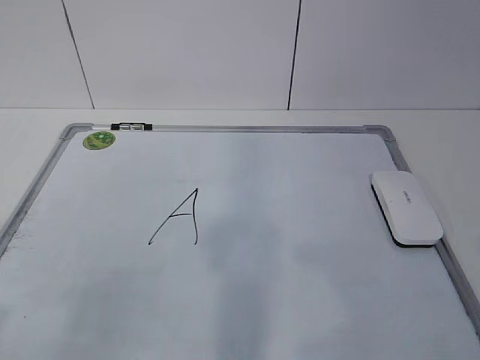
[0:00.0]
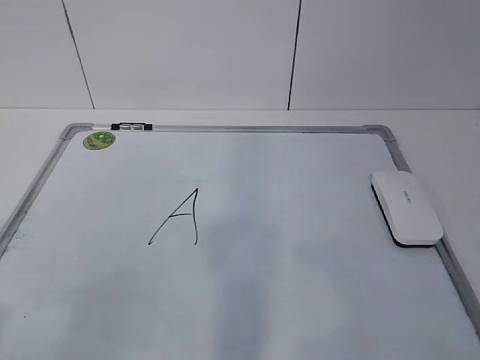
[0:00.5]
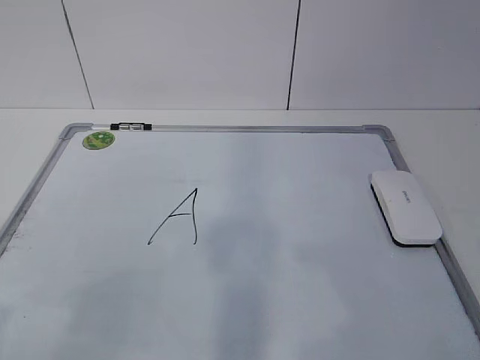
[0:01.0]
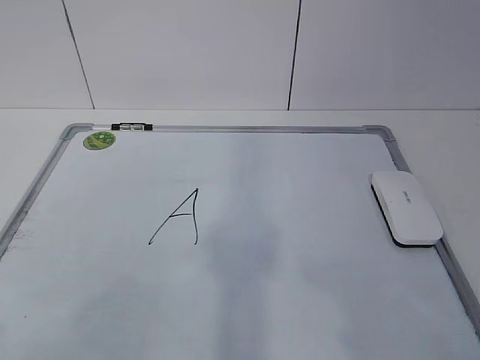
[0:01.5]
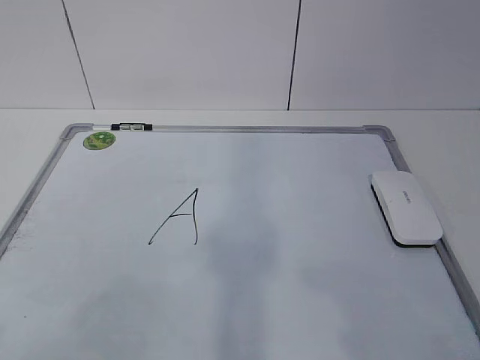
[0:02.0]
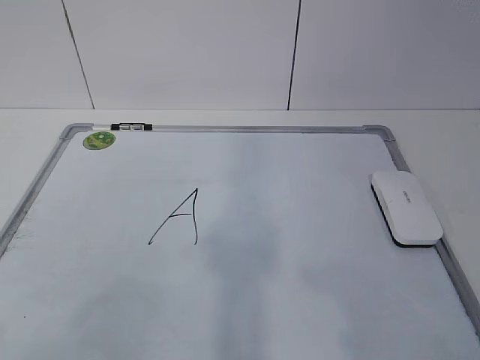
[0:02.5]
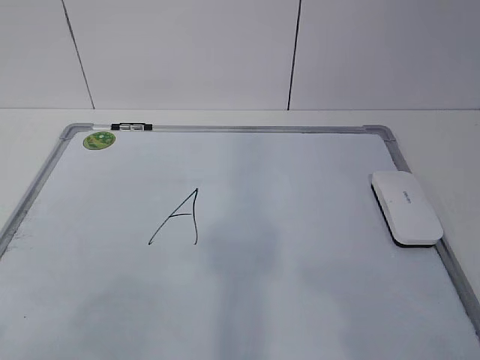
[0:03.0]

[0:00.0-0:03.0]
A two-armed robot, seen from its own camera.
Task of the whole recording: pick up the eraser on the blackboard and erase the letter "a".
0:01.5 to 0:03.0: The two grippers keep their place.

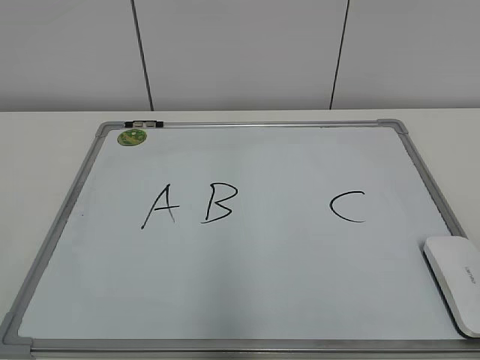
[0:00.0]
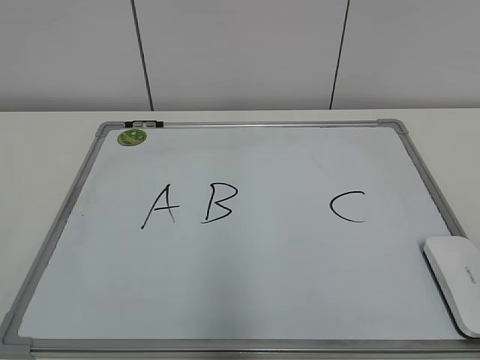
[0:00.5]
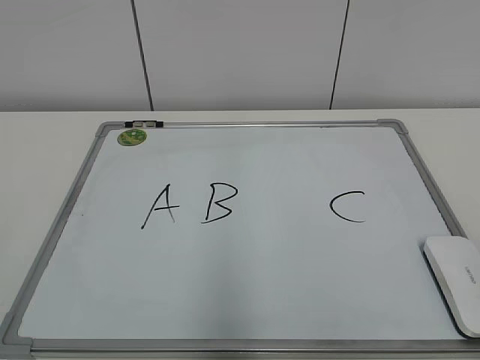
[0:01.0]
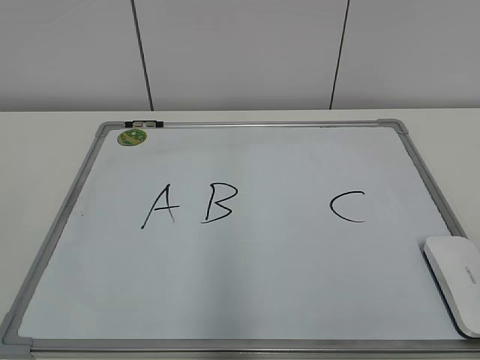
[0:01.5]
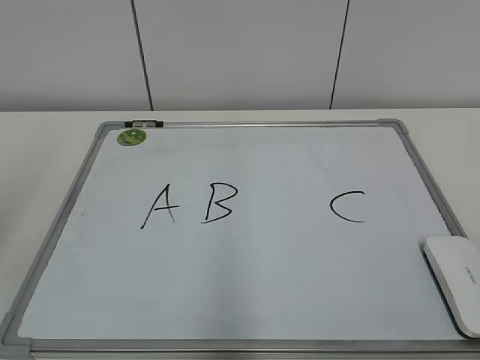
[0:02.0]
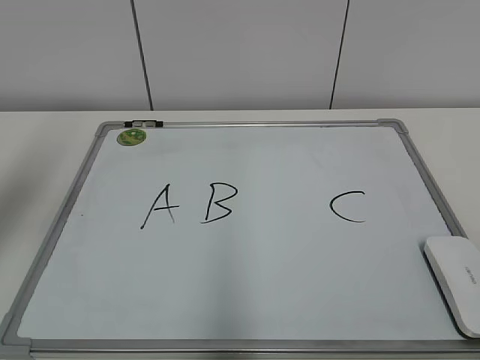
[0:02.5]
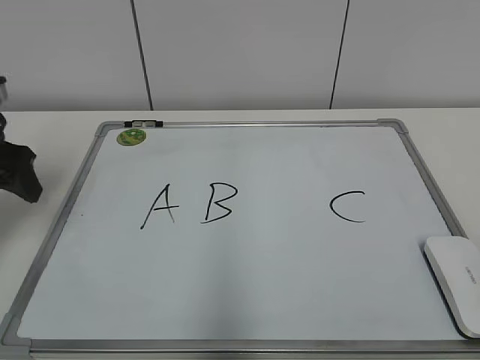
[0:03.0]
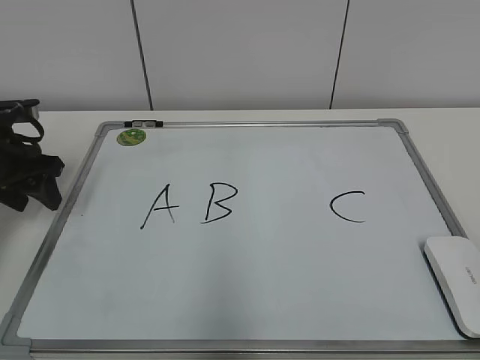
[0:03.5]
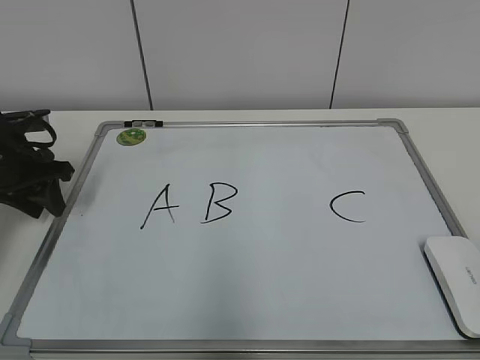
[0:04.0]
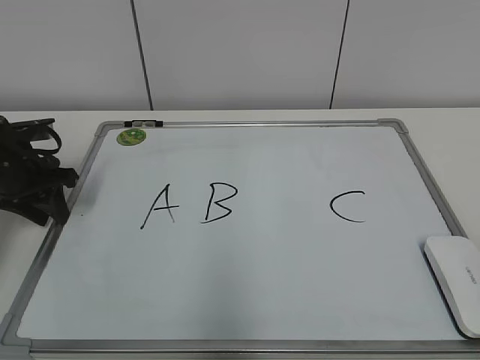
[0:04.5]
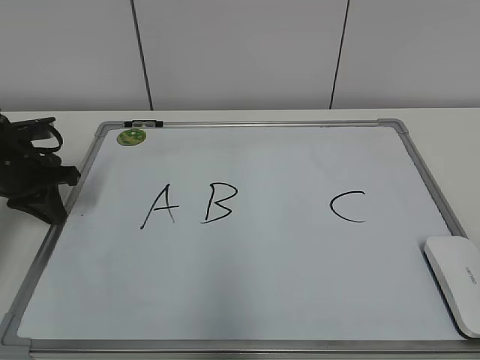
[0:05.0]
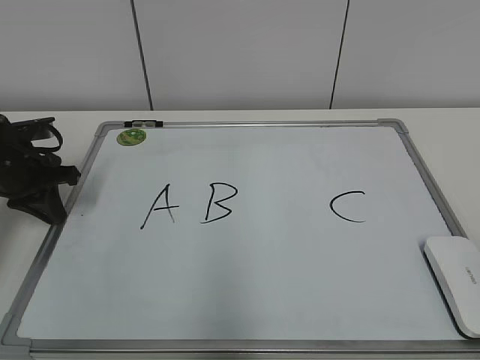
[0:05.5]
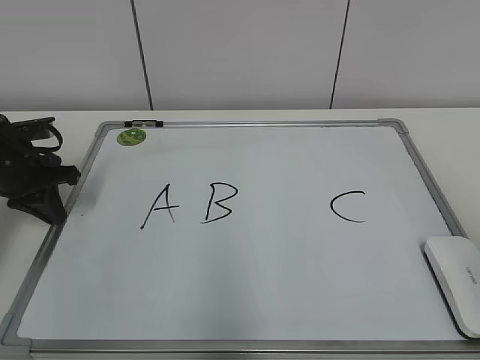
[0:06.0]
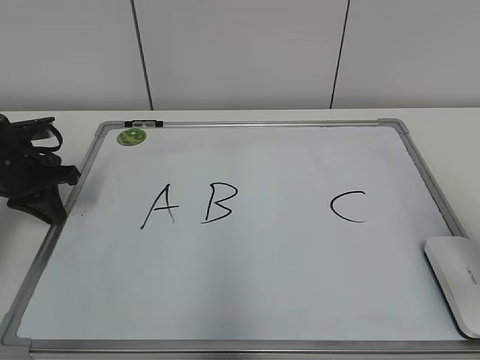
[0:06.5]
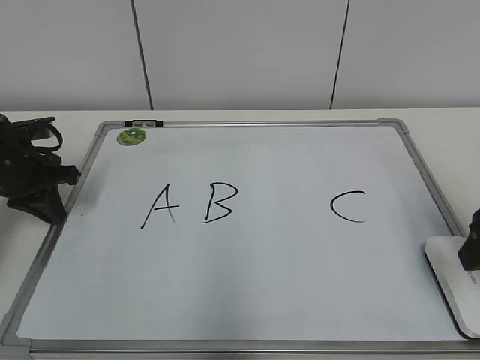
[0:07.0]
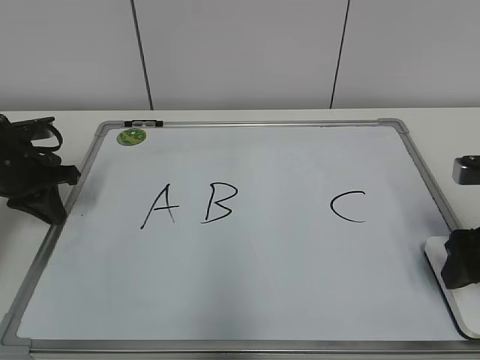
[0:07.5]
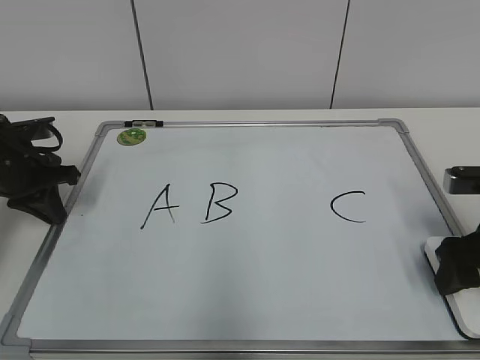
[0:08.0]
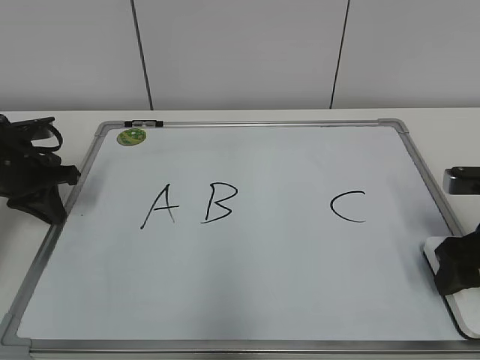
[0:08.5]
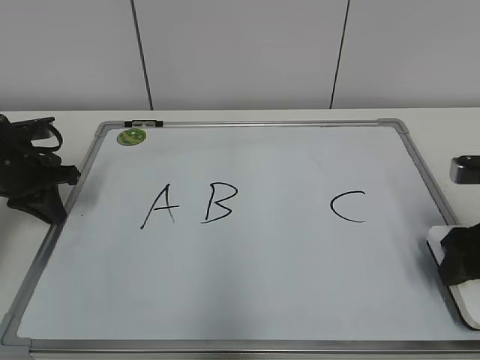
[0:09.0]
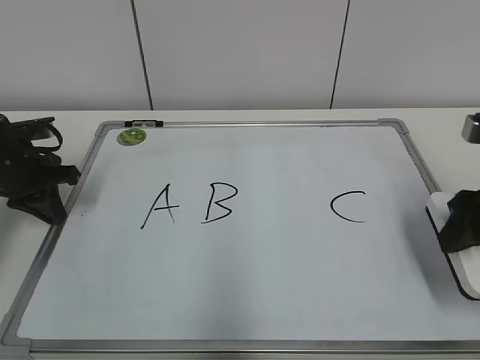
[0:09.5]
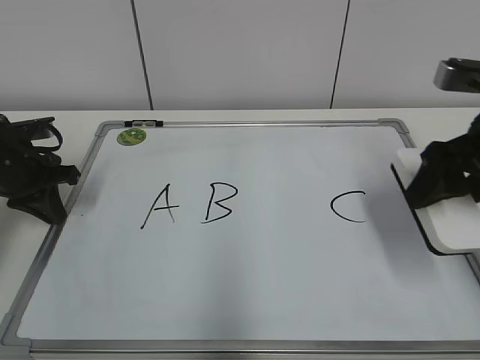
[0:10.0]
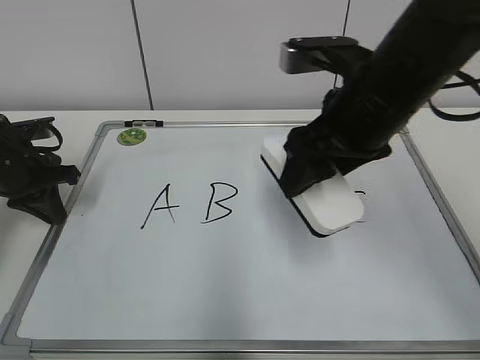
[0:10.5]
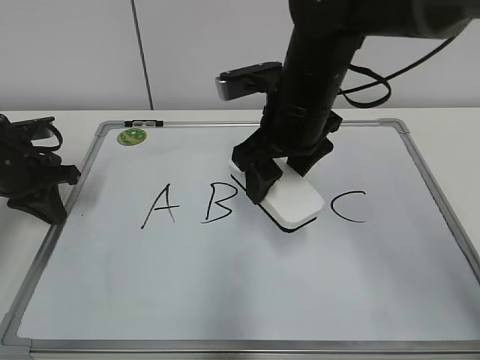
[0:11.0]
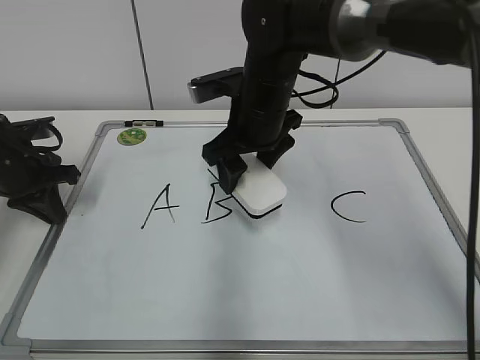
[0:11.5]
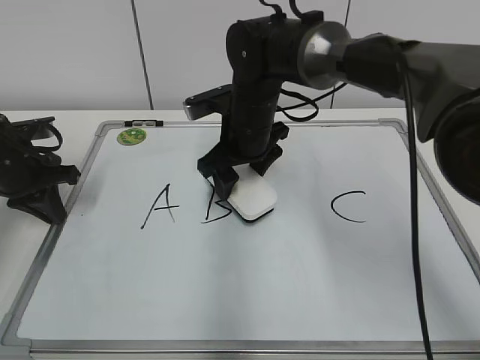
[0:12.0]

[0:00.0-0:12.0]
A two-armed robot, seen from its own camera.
Task of the whole recording: pick up the eraser on the blackboard and erase the letter "B".
Step, 0:00.0 to 0:04.5: Hold the drawing board steady with your left hand.
Step, 0:05.5 to 0:08.5: Grab the eraser with your right hand.
0:02.0 to 0:04.0: The left gripper shifts approximately 30 cm forward and downward, and closes up.
0:04.0 to 0:06.0: The left gripper closes its fingers.
0:06.0 to 0:08.0: The right gripper heads forward and downward, covering roughly 20 cm.
0:08.0 to 0:10.0: The right gripper moves upward, approximately 10 cm.
0:10.0 to 0:12.0: The right gripper heads to the left and forward, covering about 25 cm.

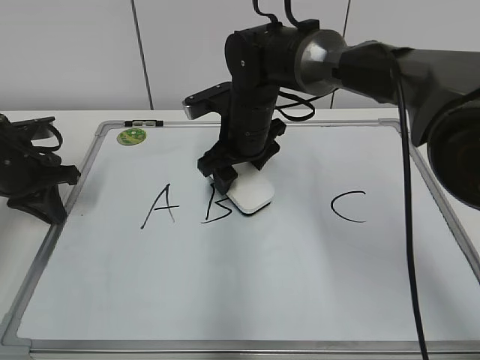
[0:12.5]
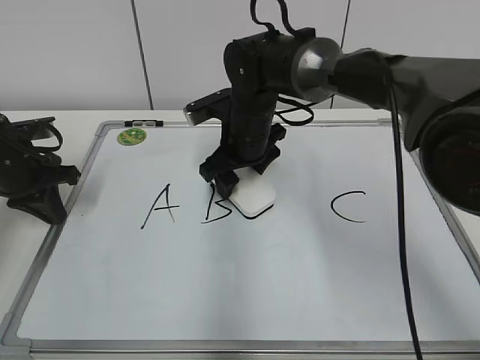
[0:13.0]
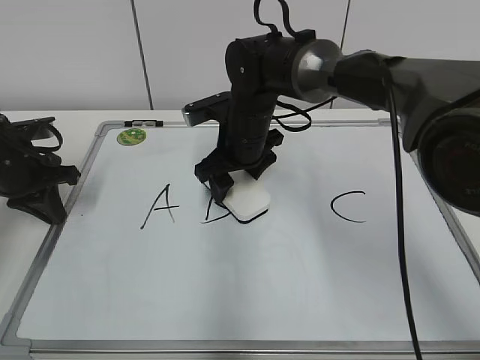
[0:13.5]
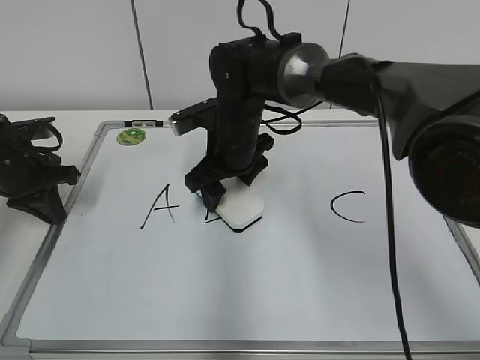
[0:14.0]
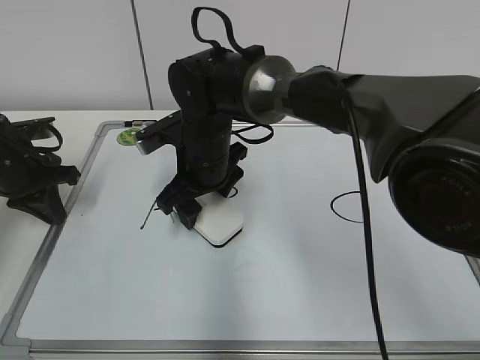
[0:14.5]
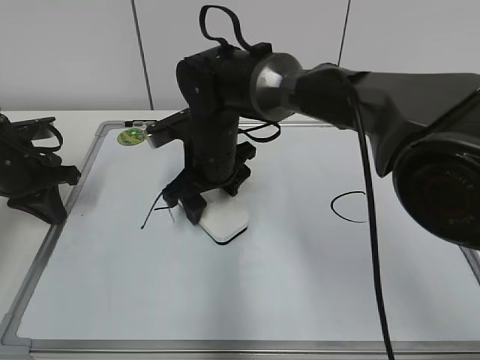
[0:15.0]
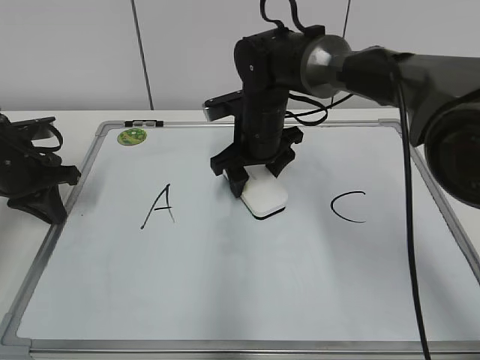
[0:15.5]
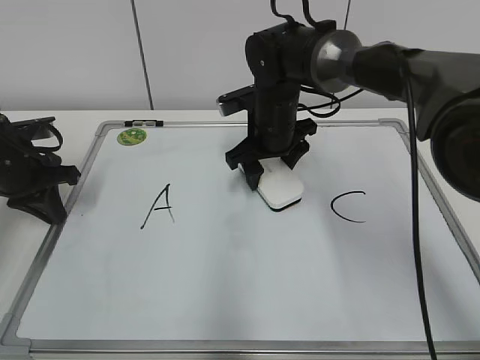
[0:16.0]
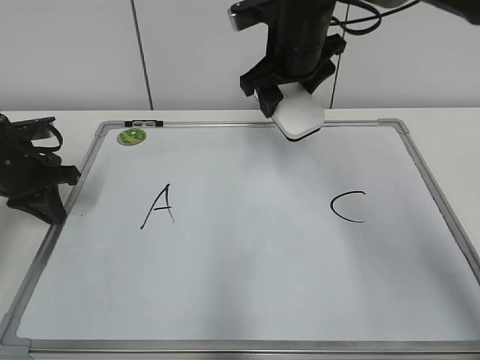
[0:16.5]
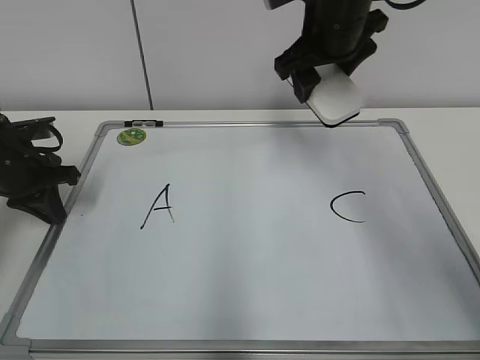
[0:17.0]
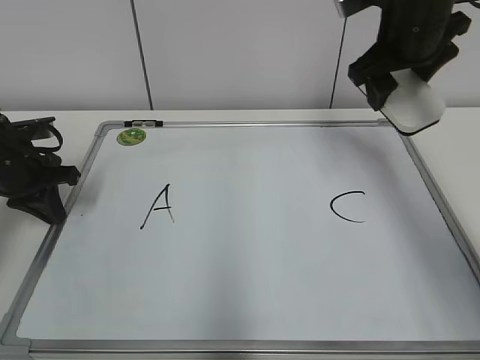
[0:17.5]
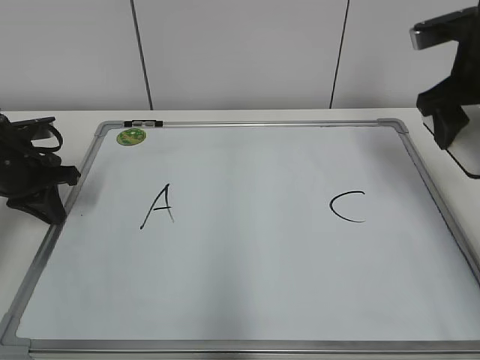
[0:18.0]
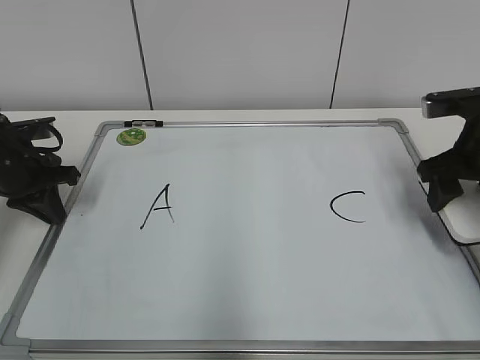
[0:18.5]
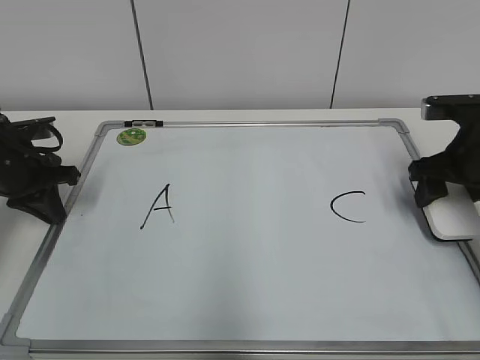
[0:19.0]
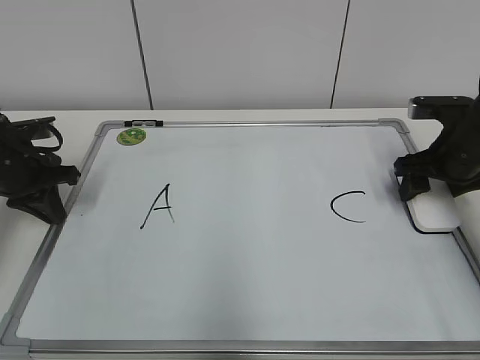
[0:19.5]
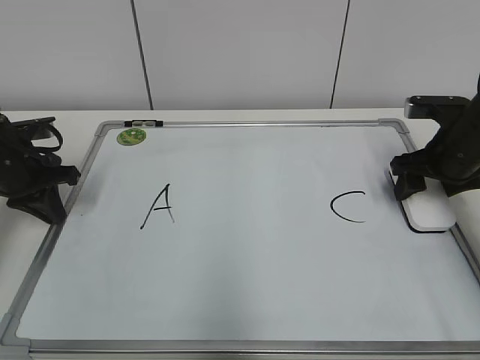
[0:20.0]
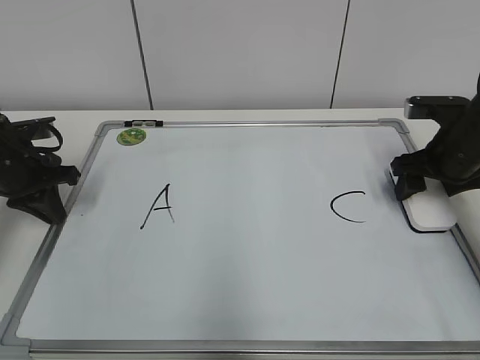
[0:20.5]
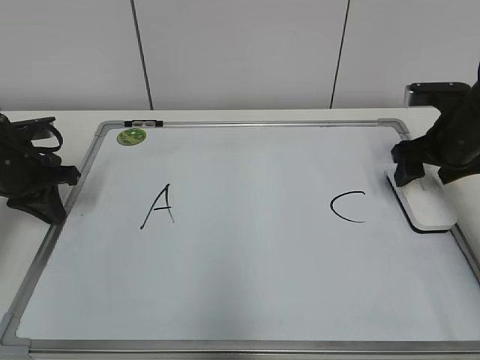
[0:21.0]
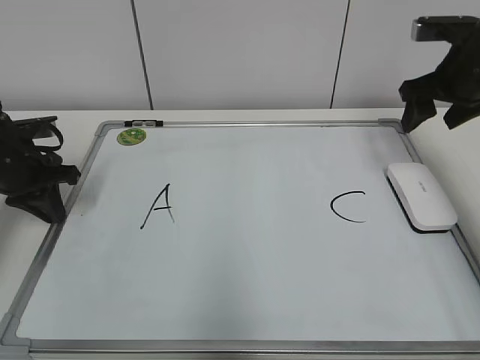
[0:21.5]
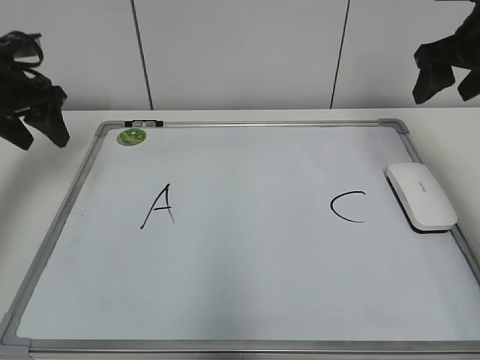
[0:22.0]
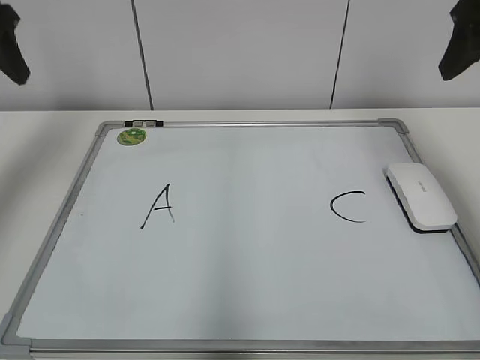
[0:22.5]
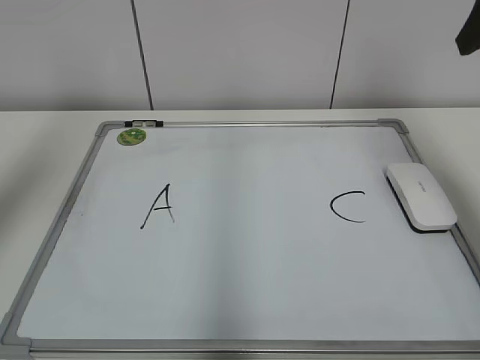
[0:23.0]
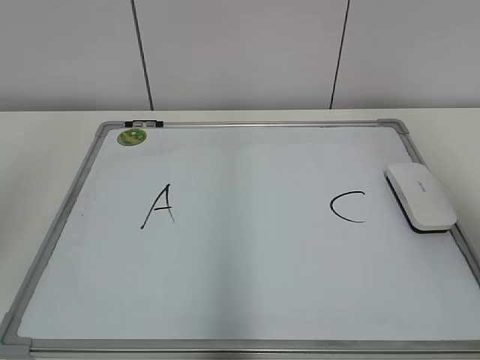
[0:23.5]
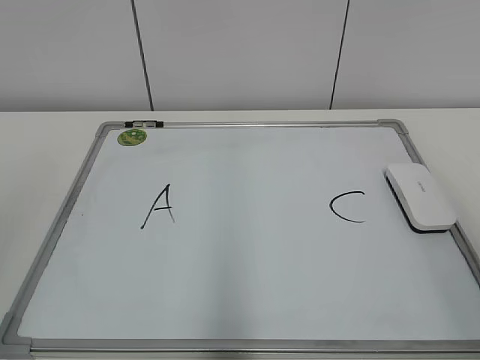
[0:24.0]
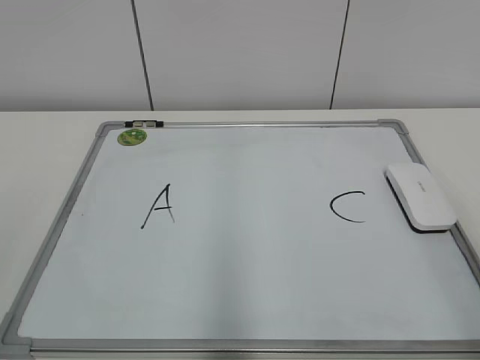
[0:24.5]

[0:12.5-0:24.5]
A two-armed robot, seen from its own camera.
Task of the whole recording: pick up the eraser on the blackboard and erase the letter "B".
Step, 0:12.5 to 0:15.5: Erase the letter B with your right hand.
Step, 0:16.5 to 0:20.0: Put down the eraser with your right hand.
0:12.5 to 0:14.5: The right gripper travels to the left by approximately 5 cm.
0:14.5 to 0:16.5: The right gripper shifts some 15 cm upward and to the right.
0:16.5 to 0:18.5: The right gripper shifts approximately 25 cm to the right, backward and downward.
0:18.5 to 0:20.5: The right gripper shifts by some 5 cm.
0:20.5 to 0:22.5: Both grippers travel together upward, about 20 cm. The left gripper opens.
0:22.5 to 0:24.5: The grippers both shift backward by some 30 cm.
